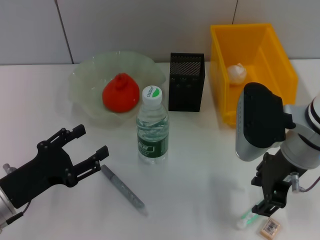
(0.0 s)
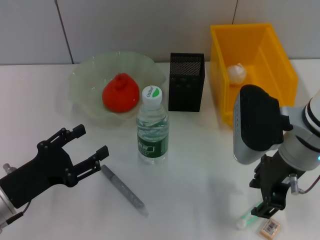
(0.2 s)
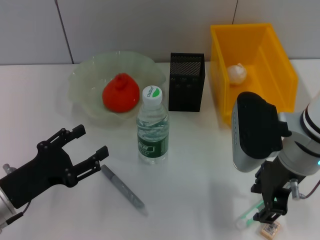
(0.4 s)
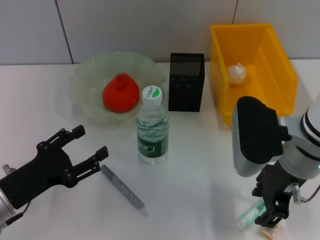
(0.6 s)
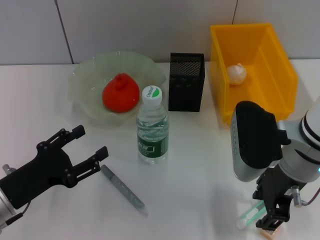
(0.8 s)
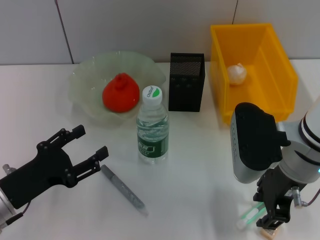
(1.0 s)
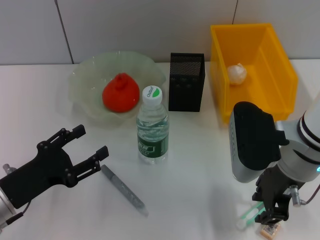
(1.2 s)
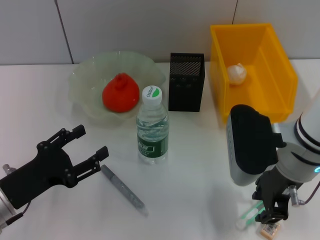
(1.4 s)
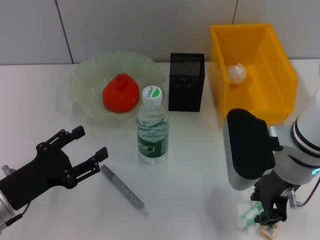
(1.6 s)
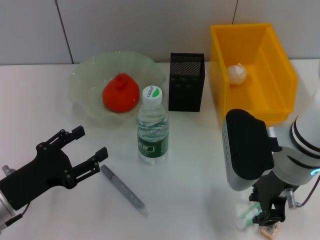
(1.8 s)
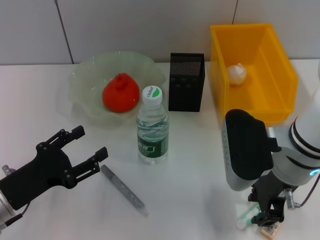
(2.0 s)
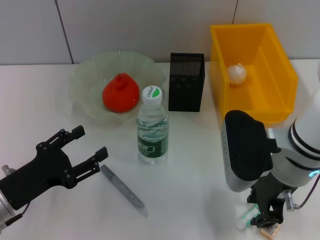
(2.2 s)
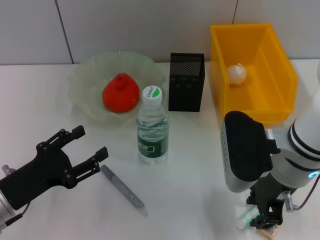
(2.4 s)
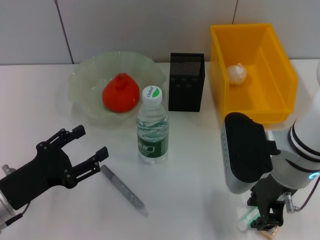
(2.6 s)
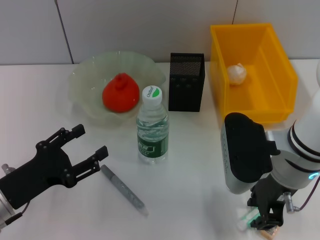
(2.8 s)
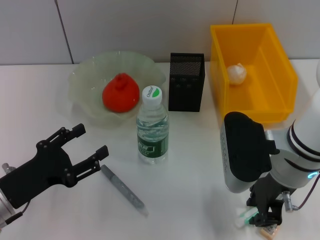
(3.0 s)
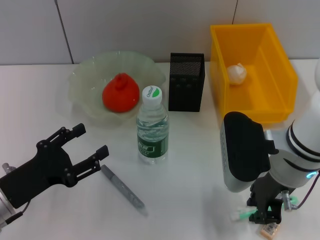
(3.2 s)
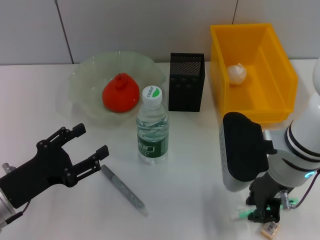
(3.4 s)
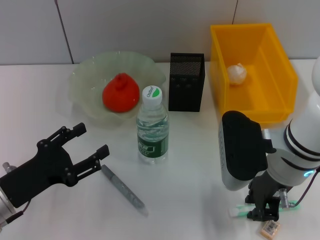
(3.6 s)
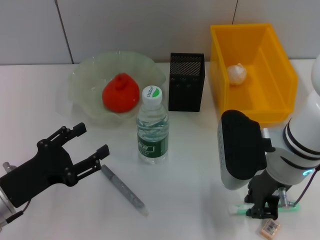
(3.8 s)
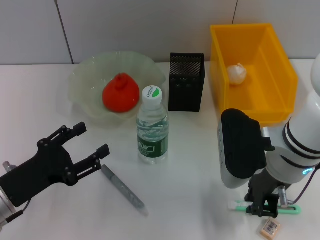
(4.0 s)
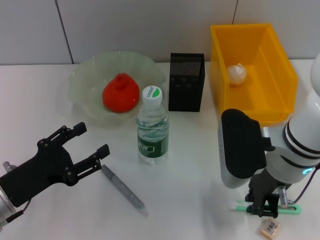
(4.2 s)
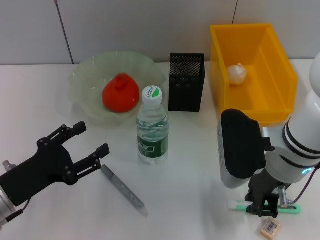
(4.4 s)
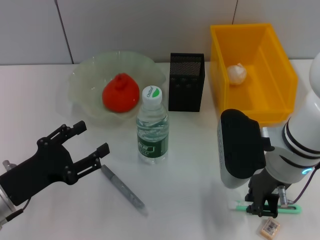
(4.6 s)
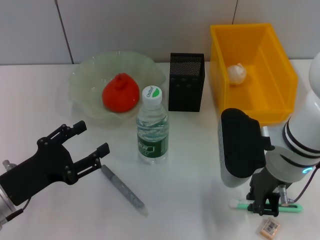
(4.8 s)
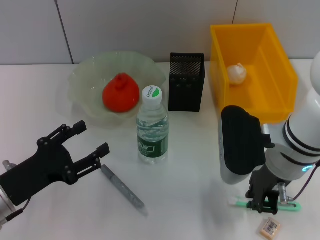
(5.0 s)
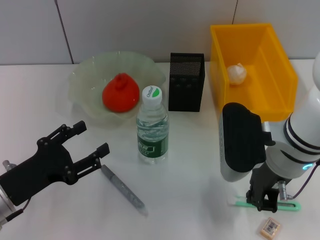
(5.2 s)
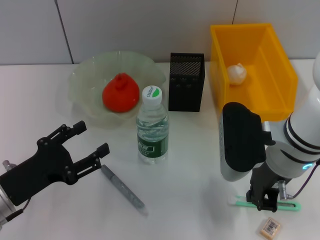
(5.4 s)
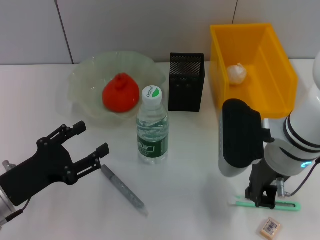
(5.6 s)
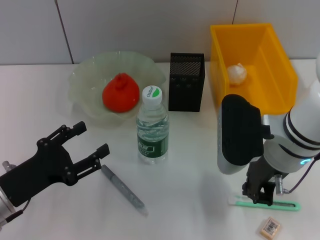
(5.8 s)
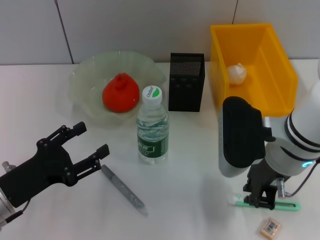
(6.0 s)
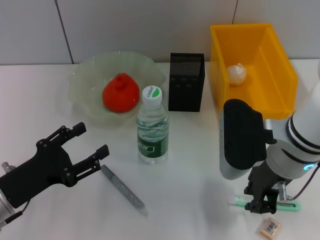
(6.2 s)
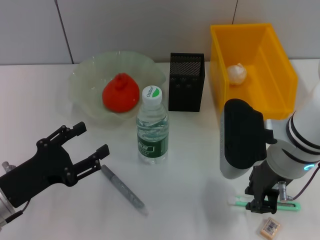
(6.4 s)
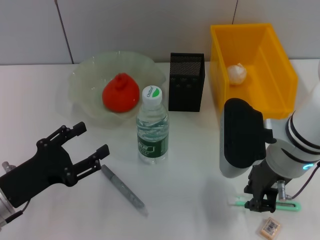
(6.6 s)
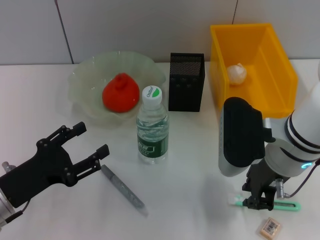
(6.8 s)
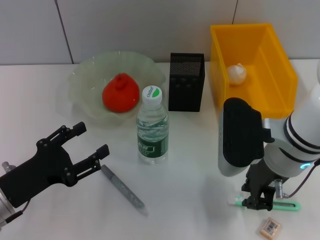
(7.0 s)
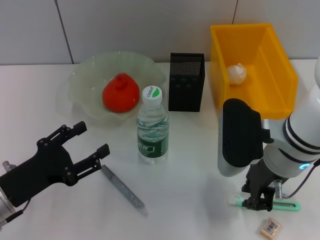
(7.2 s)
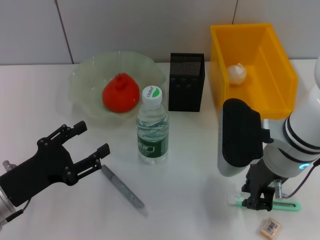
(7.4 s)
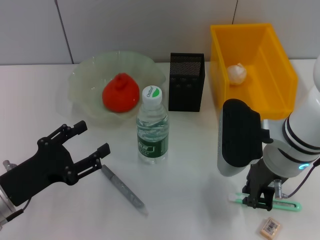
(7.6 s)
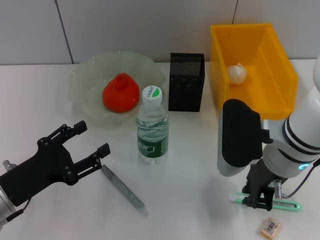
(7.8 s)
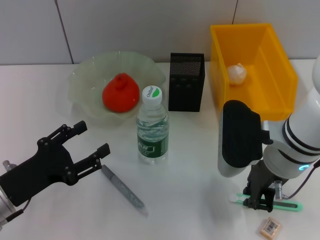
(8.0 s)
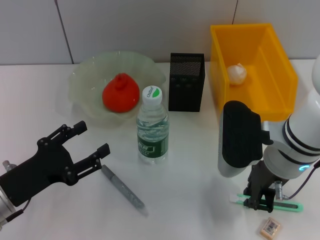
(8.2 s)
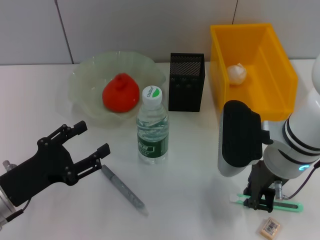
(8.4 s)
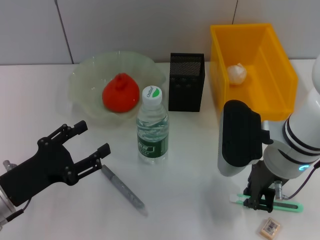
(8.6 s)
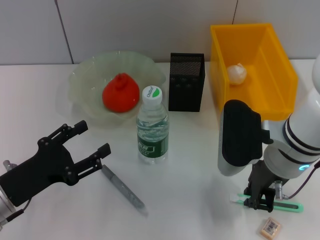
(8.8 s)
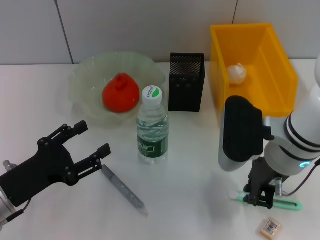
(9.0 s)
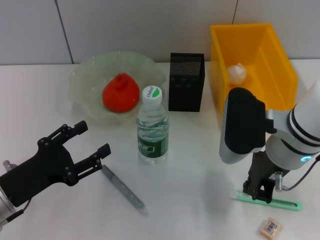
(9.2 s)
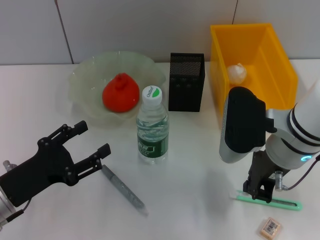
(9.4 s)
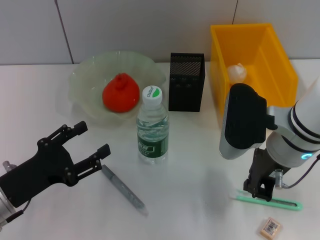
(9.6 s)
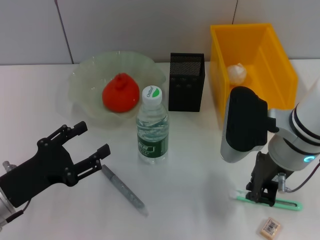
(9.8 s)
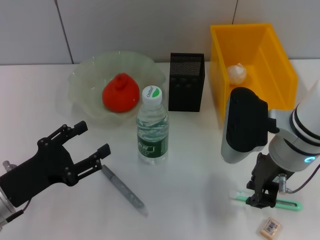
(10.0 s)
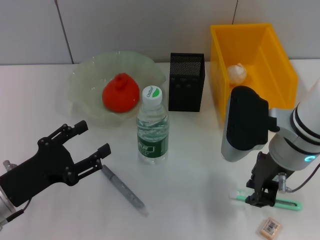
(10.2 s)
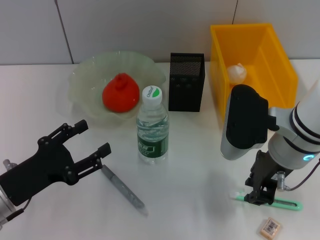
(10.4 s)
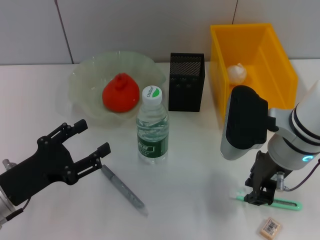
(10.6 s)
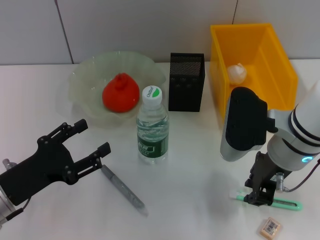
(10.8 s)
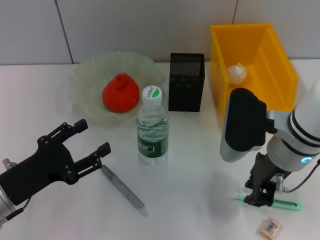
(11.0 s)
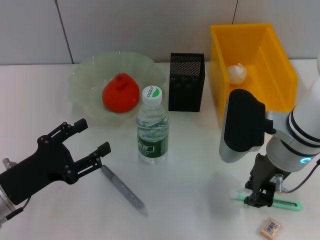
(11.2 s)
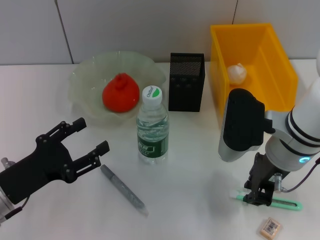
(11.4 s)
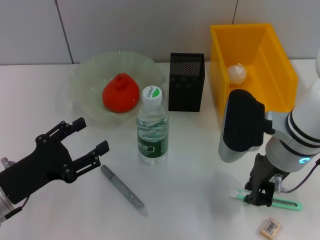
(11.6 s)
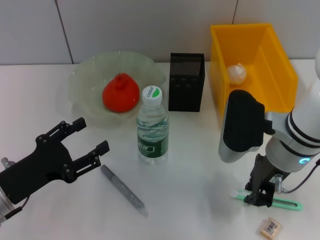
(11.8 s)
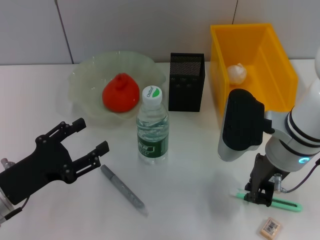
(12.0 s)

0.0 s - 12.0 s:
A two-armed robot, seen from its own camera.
Step, 0.0 s - 4.6 s: Grab the blue utility knife with the right hand.
0.0 s - 1.6 s: The grippers stay close to where they were, moving slightly.
1.6 s - 4.4 s: Neither gripper changes place.
4.4 s - 6.0 s: The grippers make only small movements.
6.0 s - 7.6 s: The two grippers keep their place.
7.6 s - 9.0 s: The two grippers keep their place.
9.0 s - 12.0 s: Both grippers stay put.

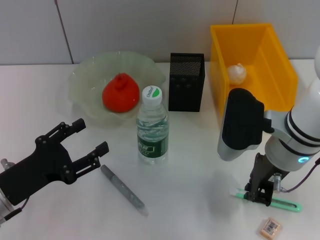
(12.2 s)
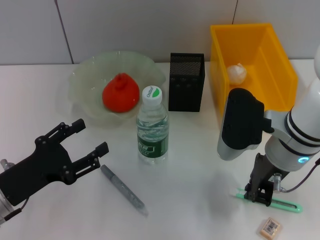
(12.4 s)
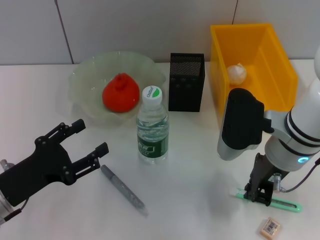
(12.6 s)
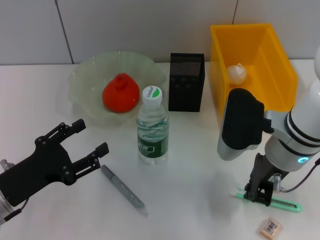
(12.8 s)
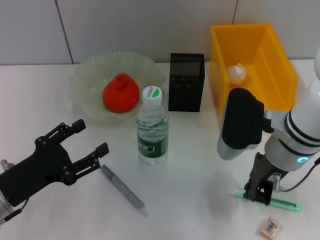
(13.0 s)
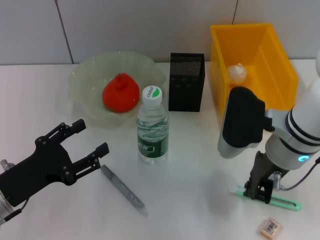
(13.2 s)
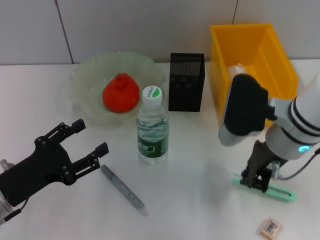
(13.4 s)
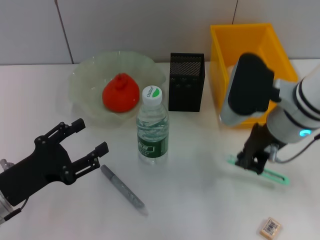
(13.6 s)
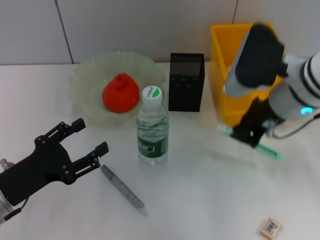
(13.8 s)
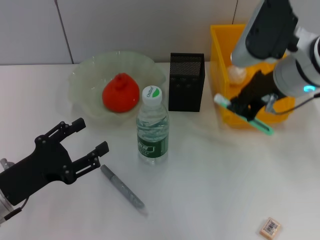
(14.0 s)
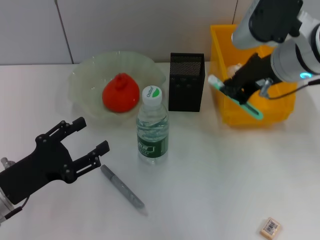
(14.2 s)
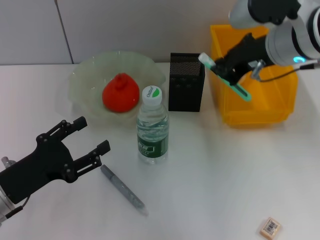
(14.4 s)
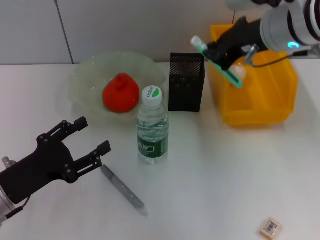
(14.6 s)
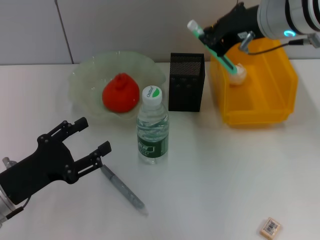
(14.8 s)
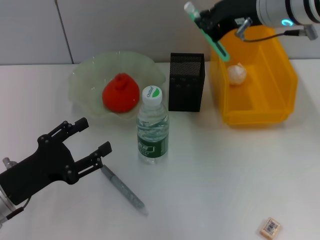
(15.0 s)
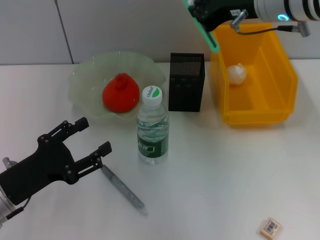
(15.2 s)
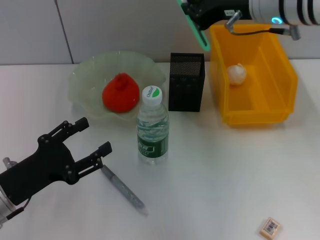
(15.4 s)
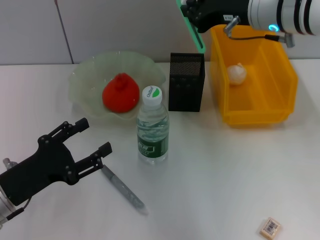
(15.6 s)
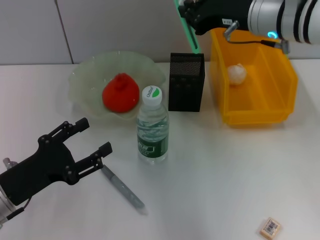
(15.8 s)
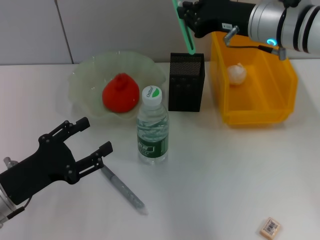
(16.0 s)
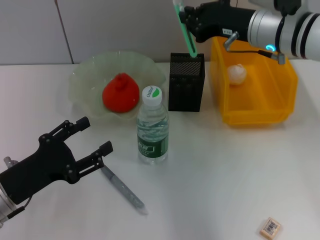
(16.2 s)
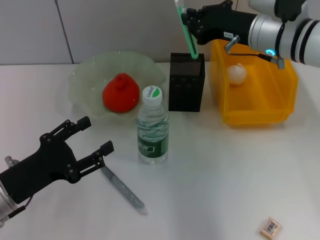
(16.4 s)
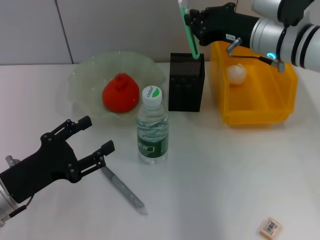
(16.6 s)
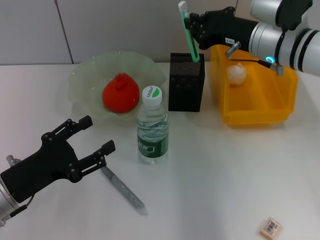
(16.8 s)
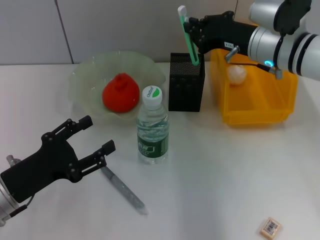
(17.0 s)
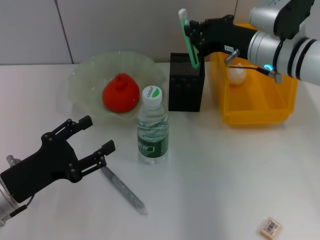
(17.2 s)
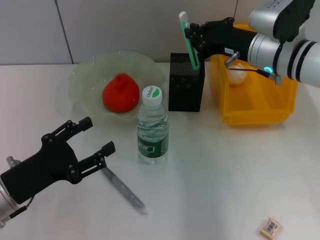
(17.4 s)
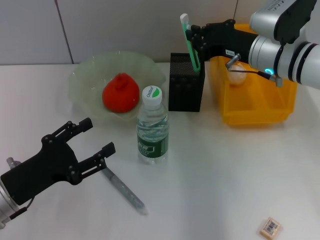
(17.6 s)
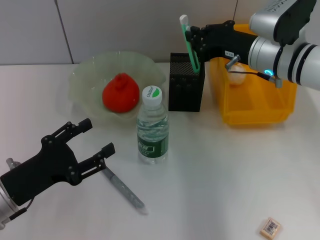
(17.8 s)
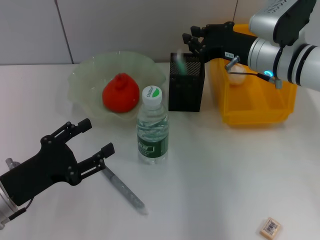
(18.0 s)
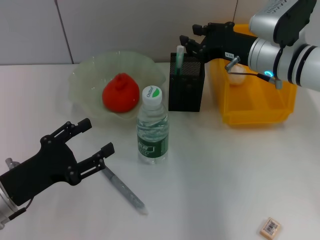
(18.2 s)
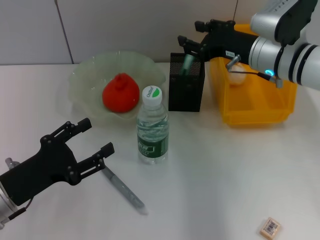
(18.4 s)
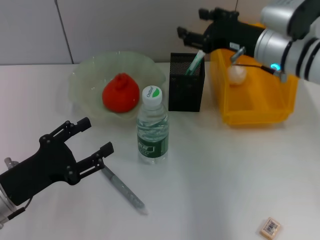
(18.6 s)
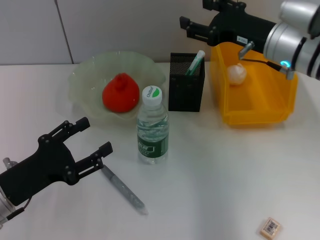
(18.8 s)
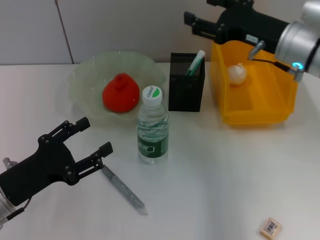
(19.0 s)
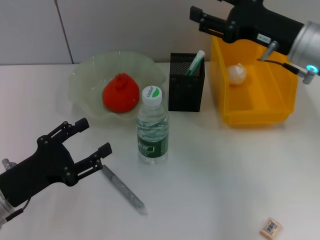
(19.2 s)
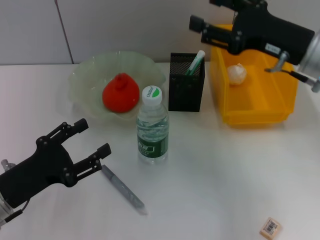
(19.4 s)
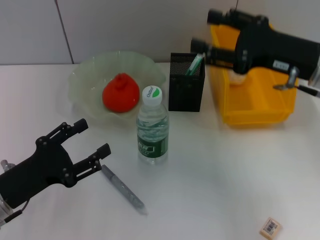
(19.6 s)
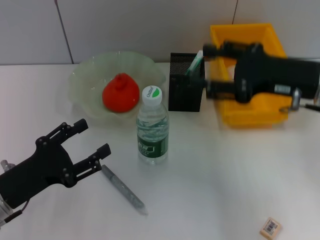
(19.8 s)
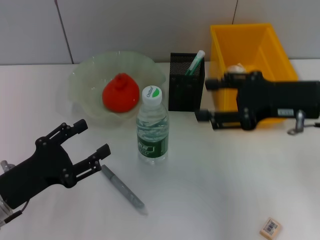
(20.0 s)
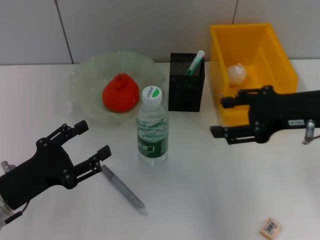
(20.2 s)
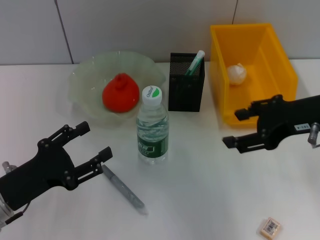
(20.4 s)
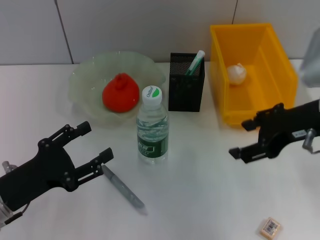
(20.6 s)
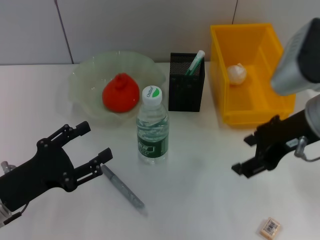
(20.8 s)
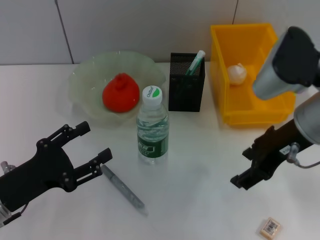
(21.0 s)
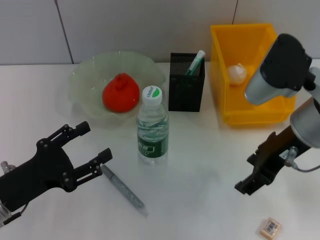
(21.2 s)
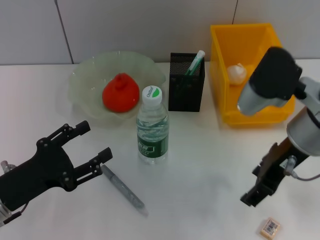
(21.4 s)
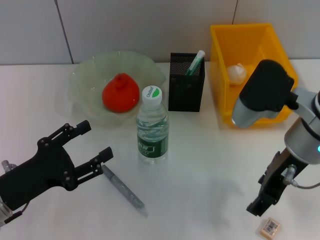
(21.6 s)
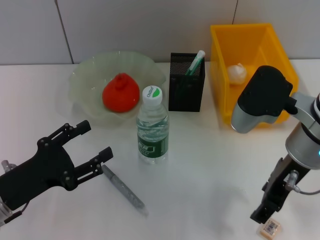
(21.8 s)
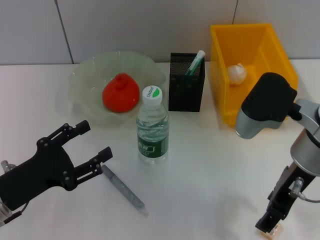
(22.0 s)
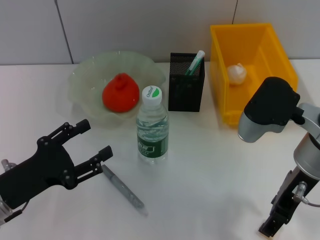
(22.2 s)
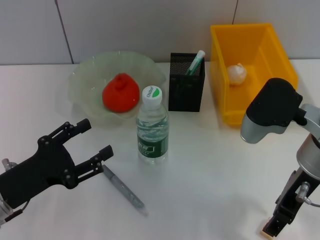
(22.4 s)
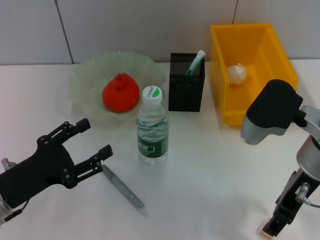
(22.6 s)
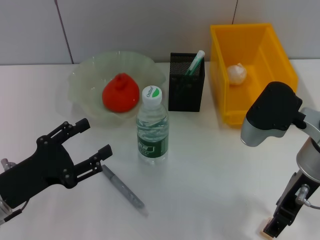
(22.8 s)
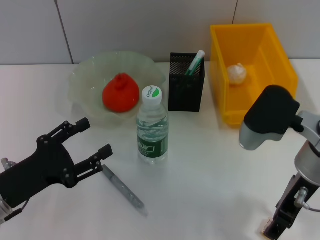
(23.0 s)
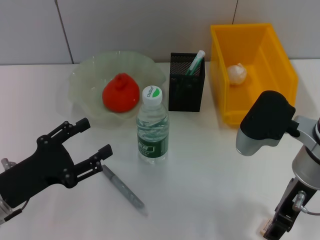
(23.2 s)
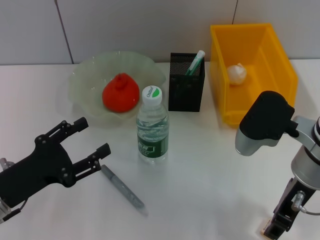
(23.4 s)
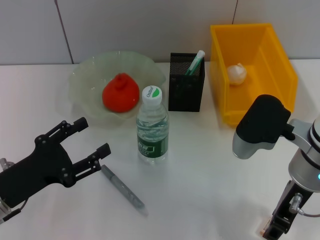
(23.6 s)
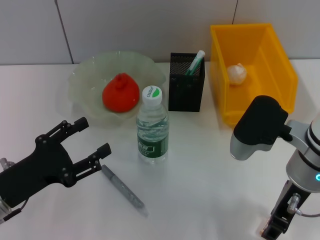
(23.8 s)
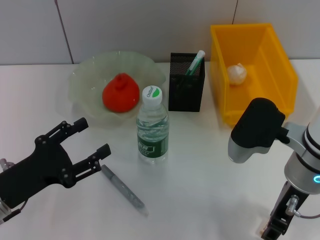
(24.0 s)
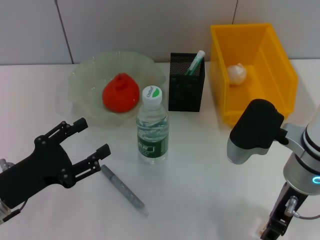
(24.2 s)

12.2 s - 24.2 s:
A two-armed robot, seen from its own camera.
Step, 12.2 s - 18.2 s: Place the blue utility knife into the pen holder with the right hand.
12.2 s - 13.8 s: The right gripper goes some 5 cm upward.
13.8 s - 15.2 s: The right gripper shifts about 10 cm upward and forward.
15.2 s - 16.6 s: The right gripper is displaced downward by approximately 10 cm.
16.6 s - 18.2 s: The grippers move only a little.
18.2 s - 19.8 s: The right gripper moves backward, about 10 cm, and opens.
19.8 s - 21.2 s: The right gripper ends up about 5 cm from where it was.
21.2 s - 22.6 s: The grippers move only a little.
22.6 s - 24.2 s: The grippers move only a little.
